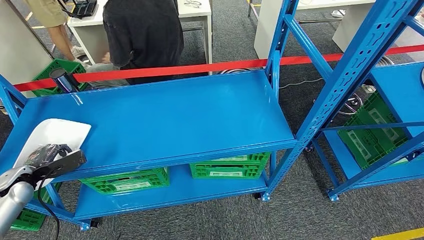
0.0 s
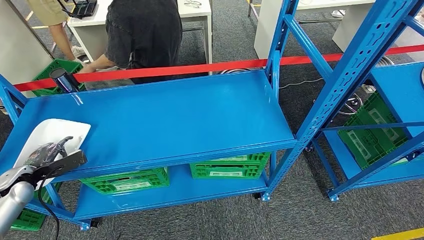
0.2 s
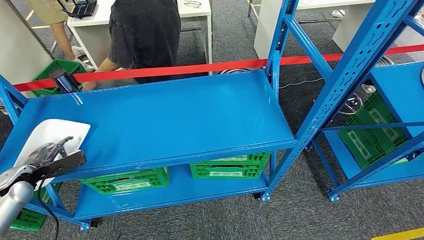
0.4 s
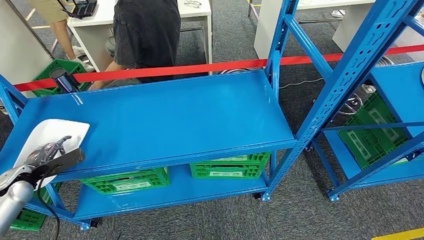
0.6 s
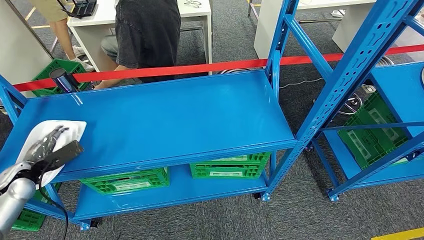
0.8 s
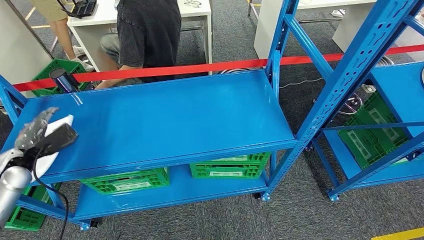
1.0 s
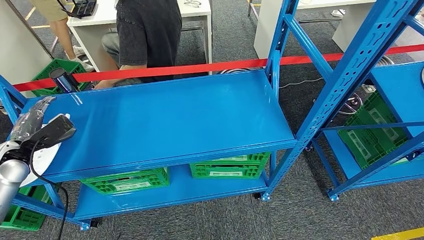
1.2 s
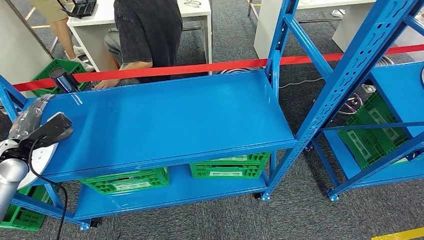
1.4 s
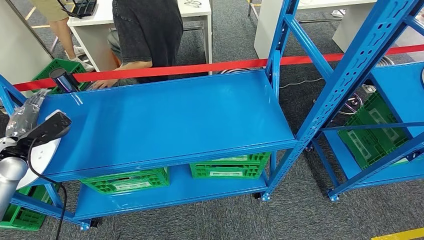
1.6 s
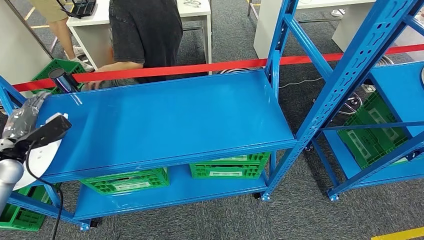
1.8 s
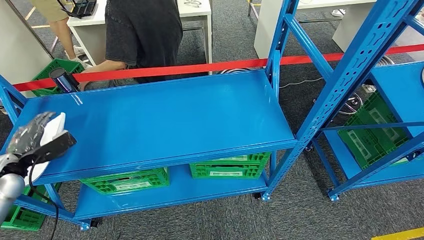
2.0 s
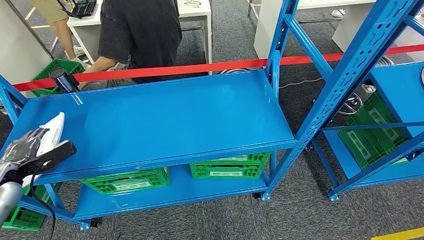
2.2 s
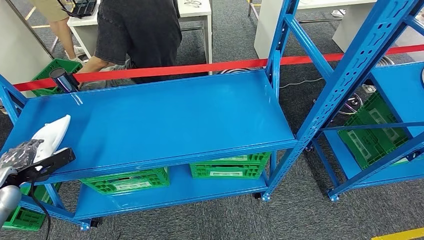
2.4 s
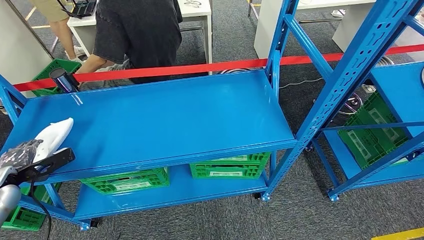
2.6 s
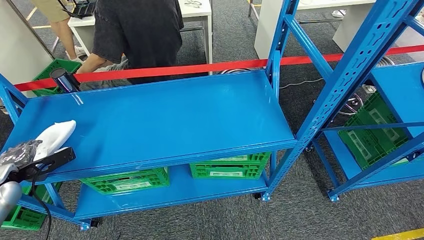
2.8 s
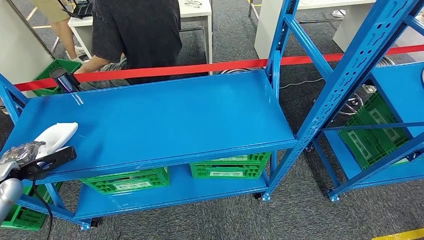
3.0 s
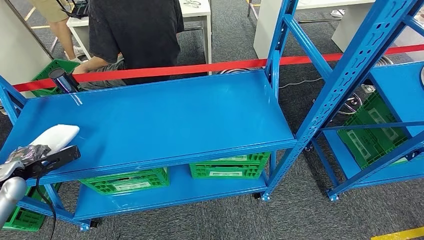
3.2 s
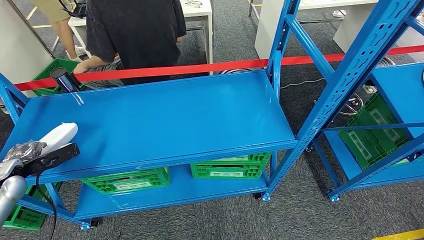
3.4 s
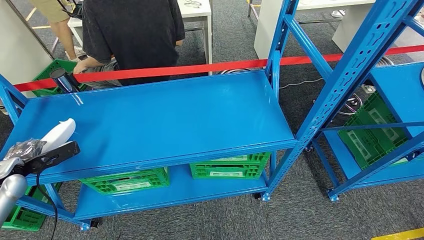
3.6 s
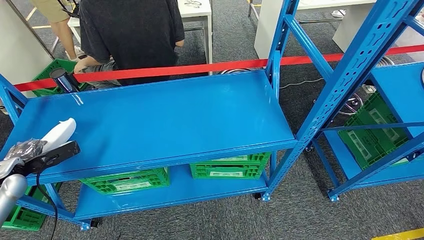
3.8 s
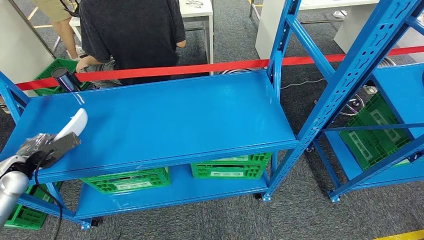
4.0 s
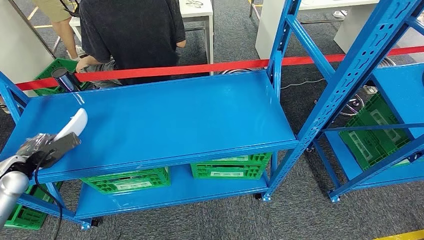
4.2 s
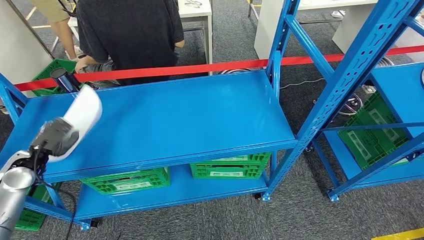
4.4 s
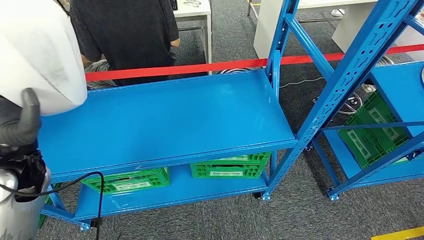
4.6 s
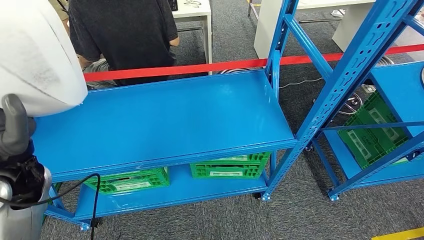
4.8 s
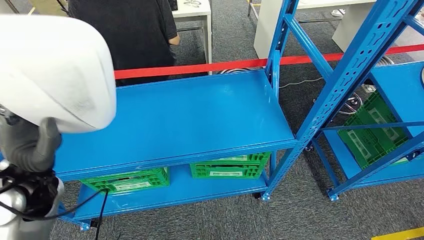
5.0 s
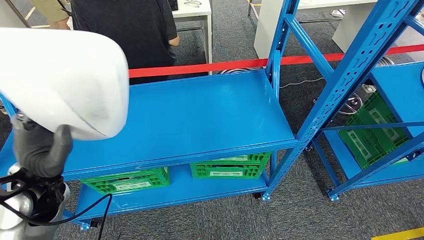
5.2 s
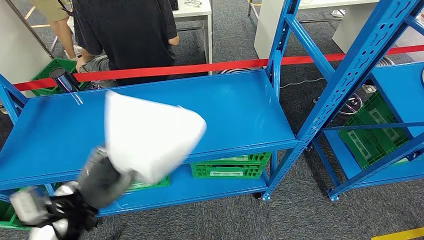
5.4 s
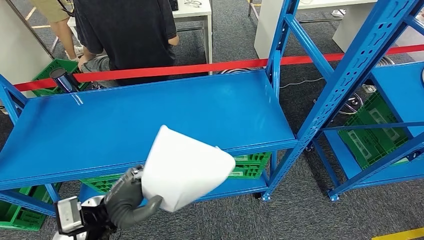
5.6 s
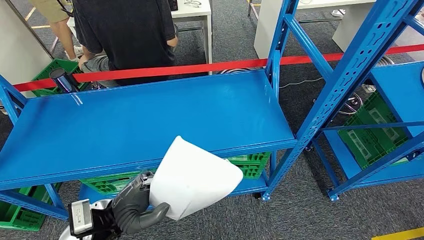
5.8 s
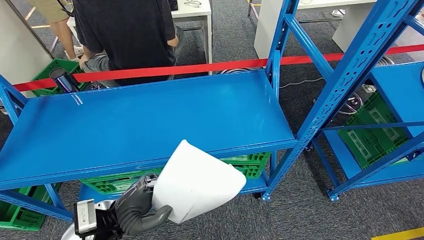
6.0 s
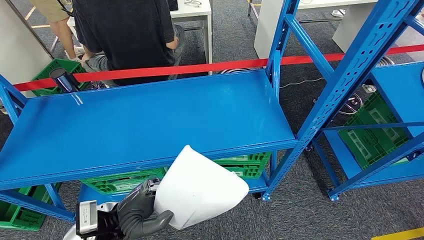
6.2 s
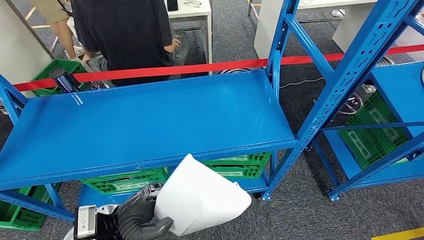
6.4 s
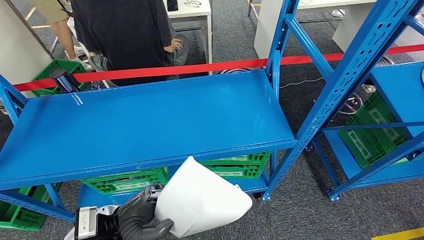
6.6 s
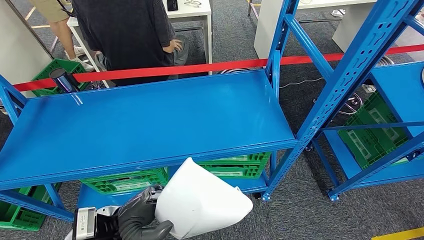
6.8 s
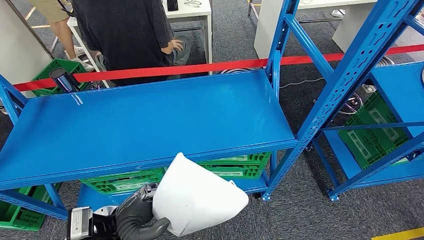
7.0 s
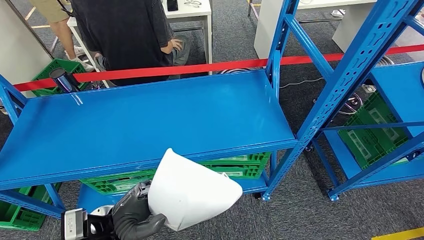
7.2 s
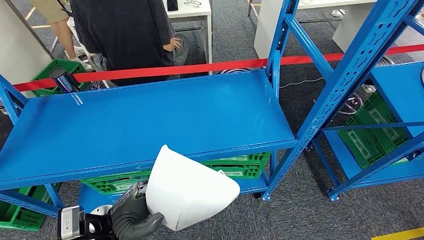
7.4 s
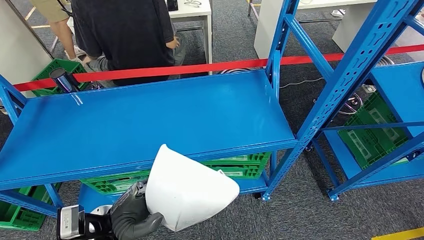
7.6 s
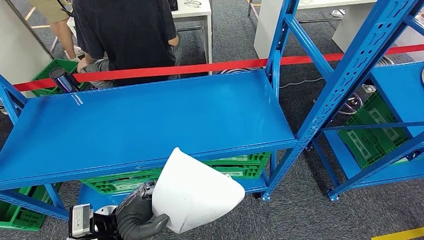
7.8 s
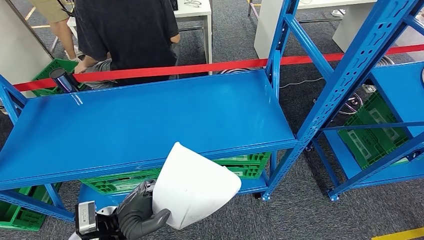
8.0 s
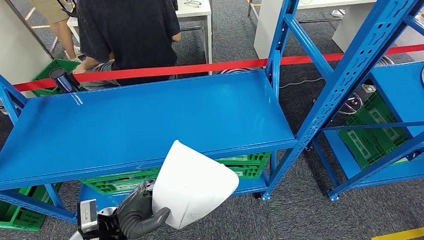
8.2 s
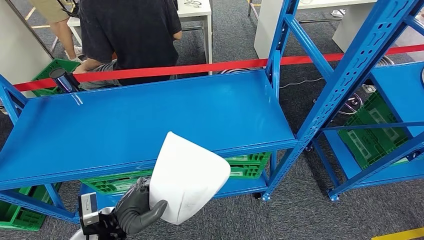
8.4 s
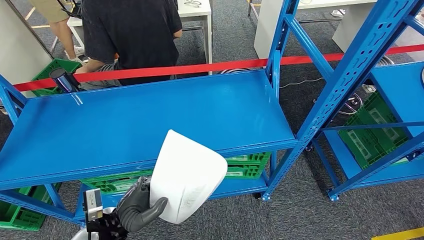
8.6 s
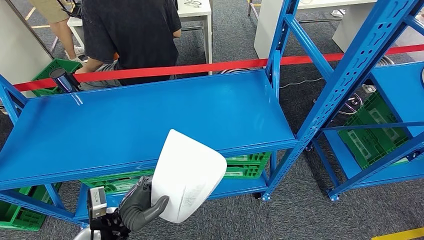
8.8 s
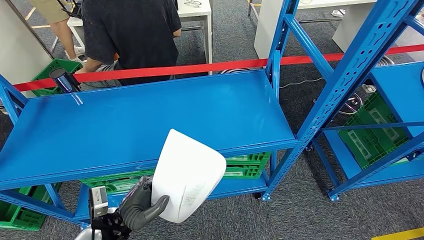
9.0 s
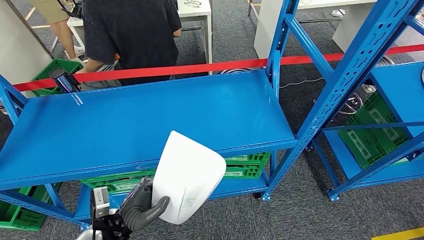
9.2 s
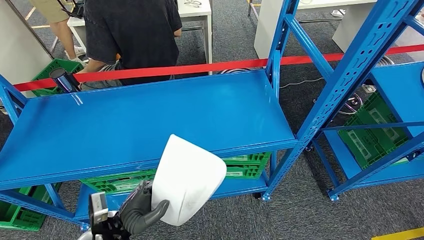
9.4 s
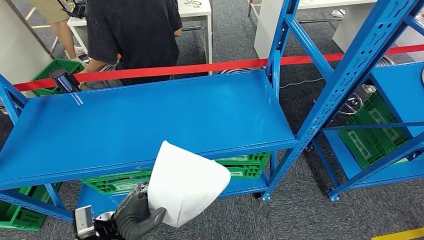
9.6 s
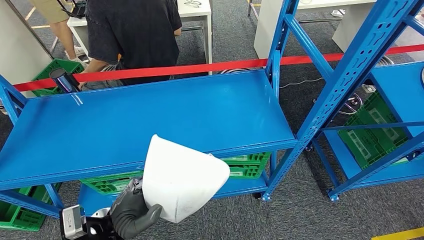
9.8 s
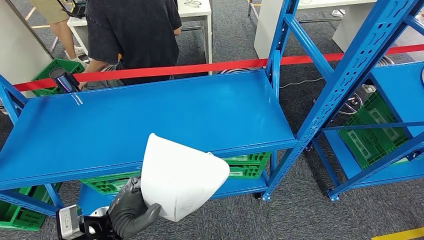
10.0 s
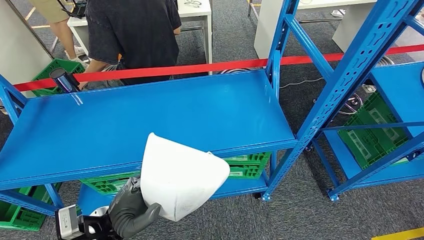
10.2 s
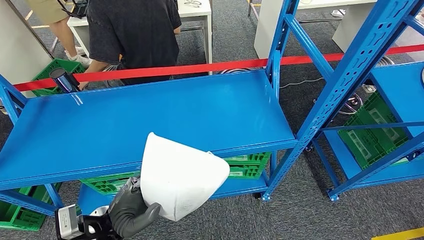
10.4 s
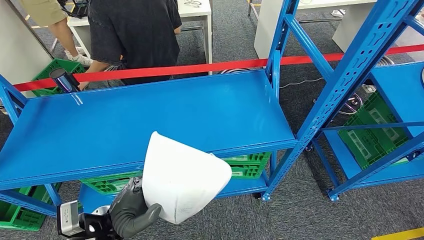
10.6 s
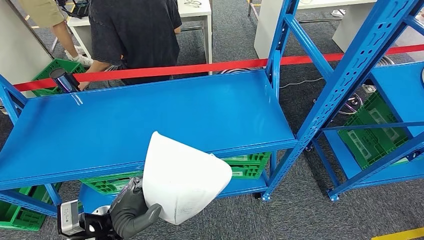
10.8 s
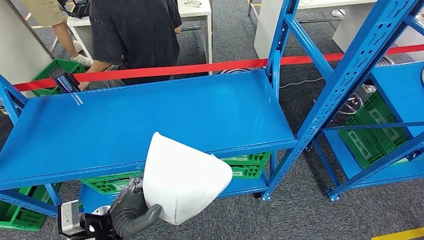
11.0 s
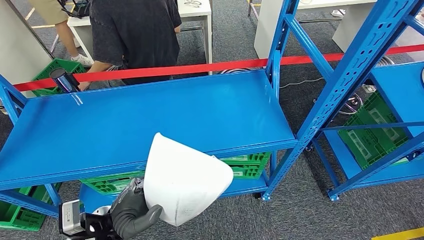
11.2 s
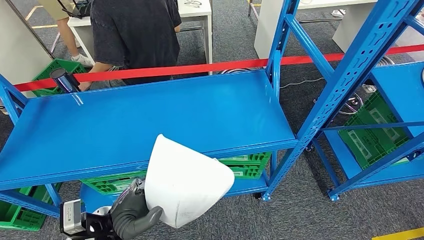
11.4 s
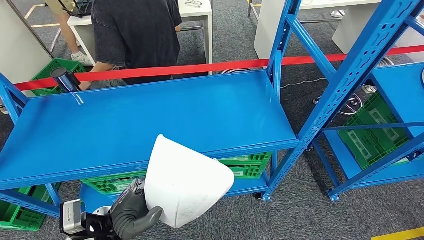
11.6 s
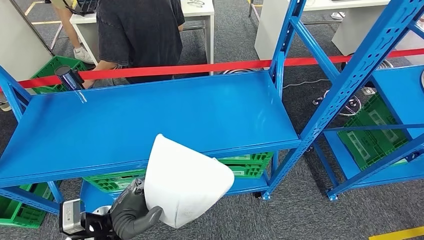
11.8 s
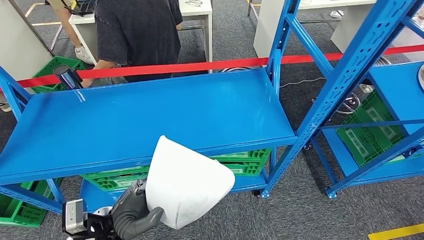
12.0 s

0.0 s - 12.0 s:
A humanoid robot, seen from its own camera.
Step, 0.0 s - 6.0 s: Pick up the small component from the shelf.
0.0 s - 1.6 s: The left hand shifts roughly 10 cm upward.
1.6 s - 3.0 s: The left hand ends up roughly 5 cm from where it was.
4.4 s - 6.0 s: The left hand heads to the right, covering roughly 30 cm.
6.0 s - 12.0 s: There are only small adjustments of the hands.

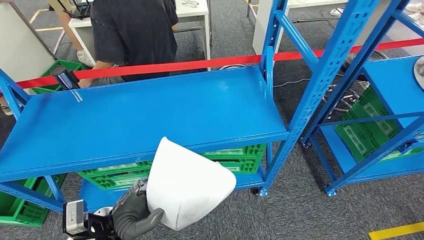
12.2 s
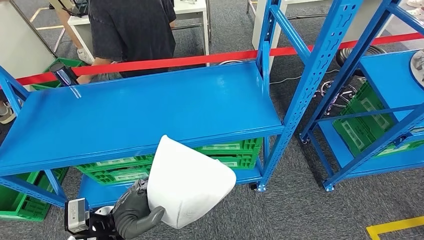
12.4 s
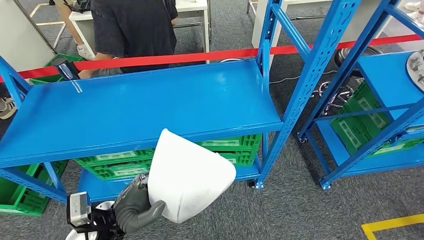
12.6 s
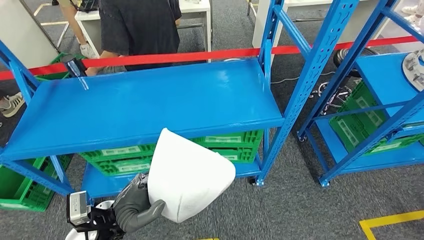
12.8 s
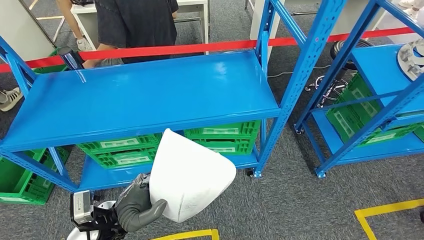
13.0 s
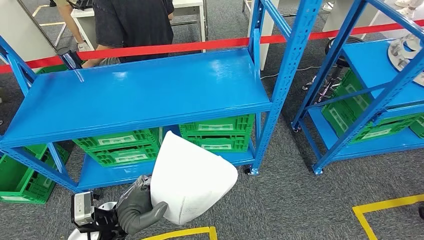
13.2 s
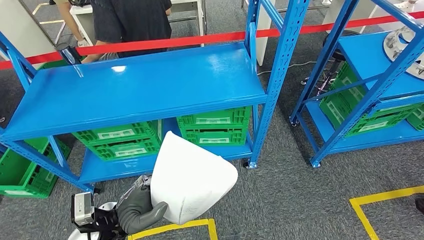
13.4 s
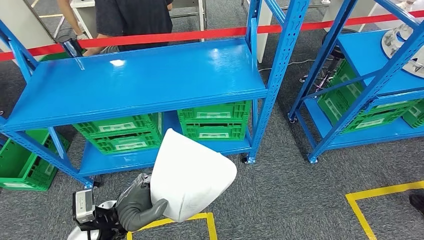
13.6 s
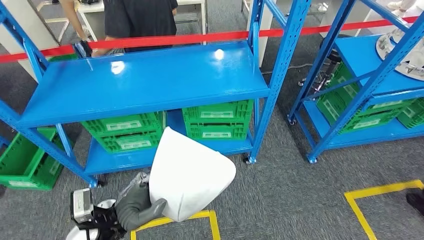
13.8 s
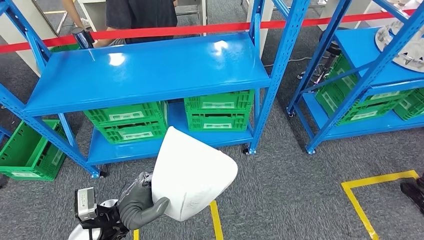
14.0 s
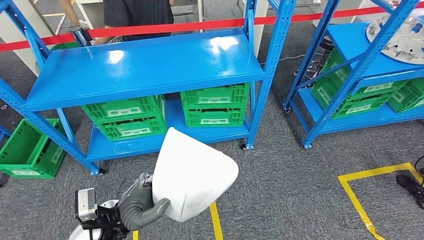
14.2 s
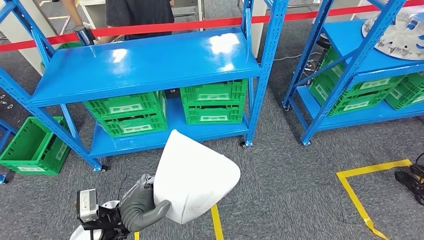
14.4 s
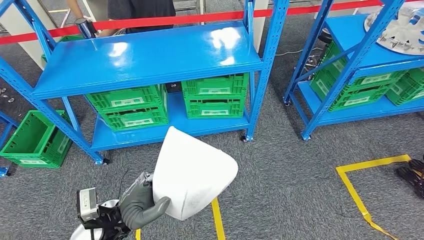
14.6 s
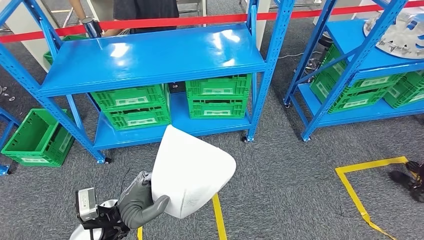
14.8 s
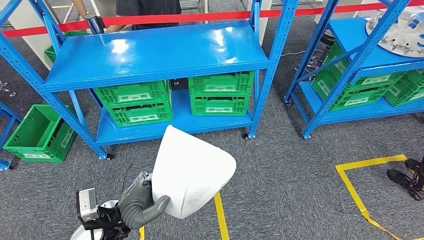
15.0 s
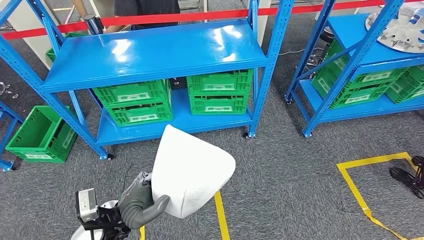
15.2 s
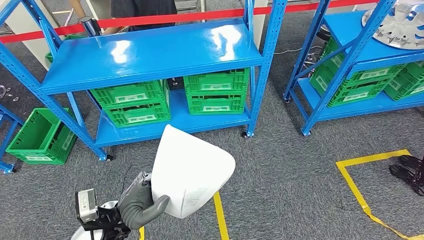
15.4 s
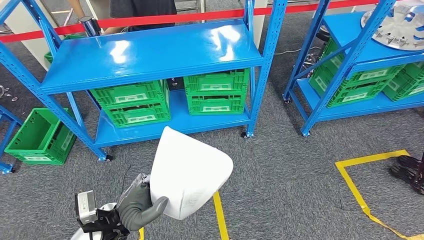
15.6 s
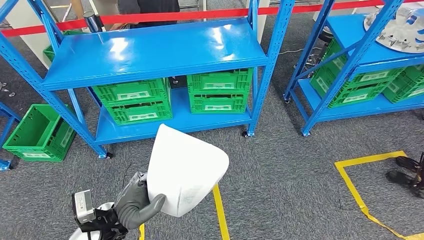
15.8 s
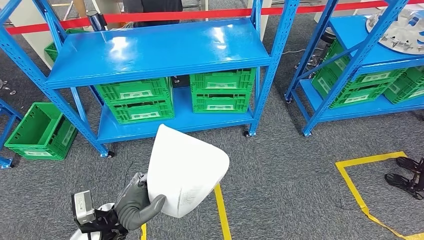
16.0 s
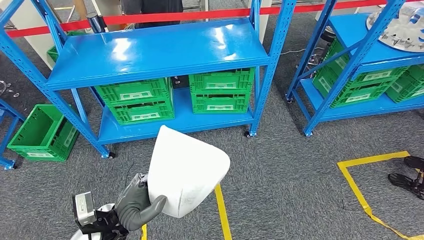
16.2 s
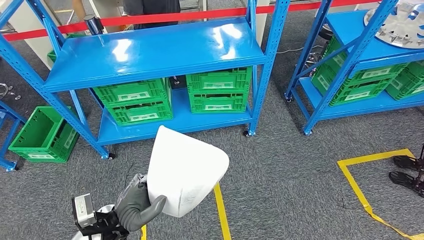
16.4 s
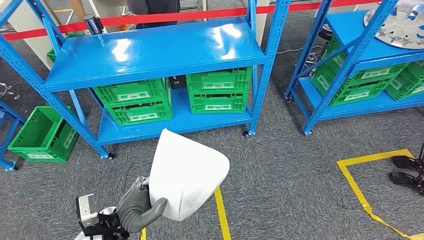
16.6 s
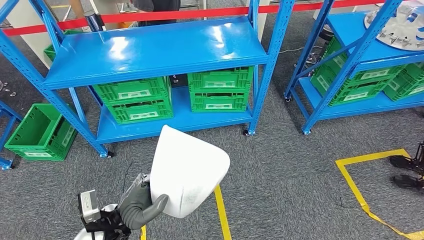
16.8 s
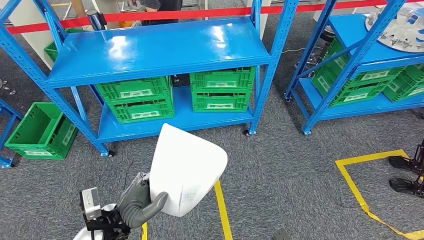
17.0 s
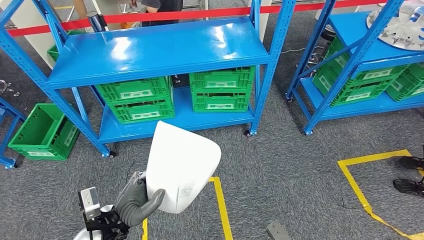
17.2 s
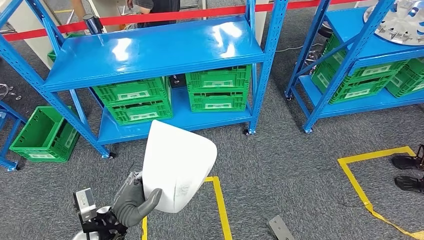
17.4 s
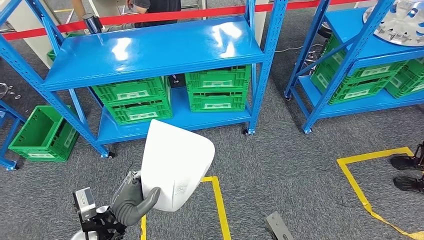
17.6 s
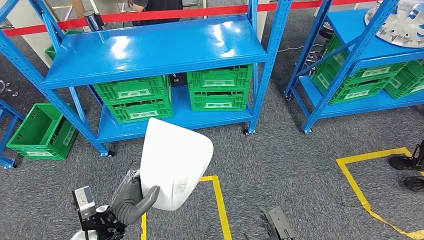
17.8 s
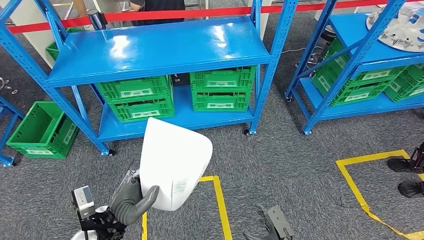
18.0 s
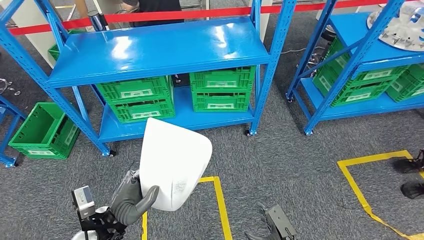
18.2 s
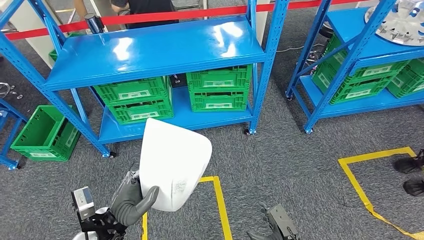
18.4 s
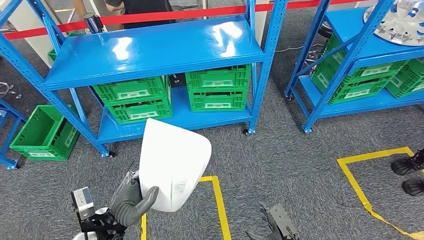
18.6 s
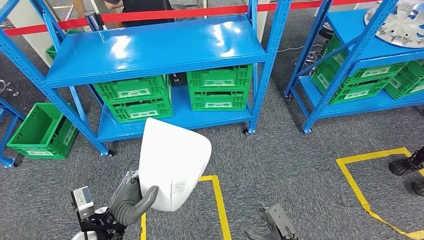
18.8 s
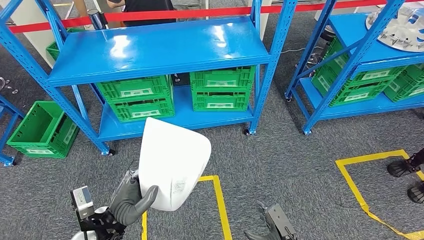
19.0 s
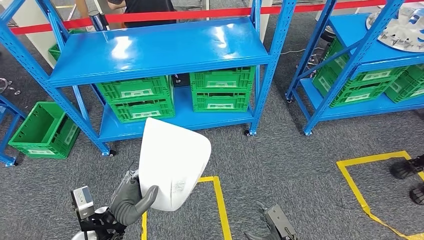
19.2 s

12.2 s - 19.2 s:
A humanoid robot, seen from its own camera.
16.4 s - 17.8 s: The right hand is displaced to the left and forward by approximately 10 cm.
17.8 s - 19.2 s: The hands stay close to where they were, moving slightly.
